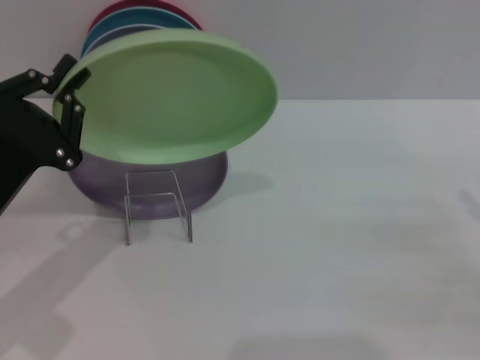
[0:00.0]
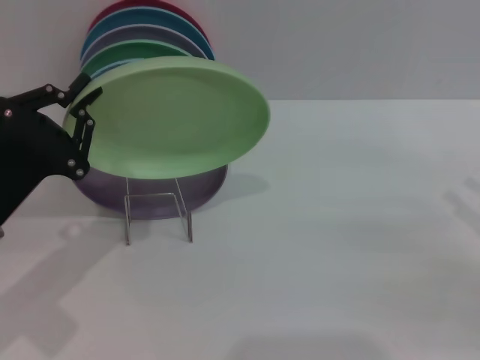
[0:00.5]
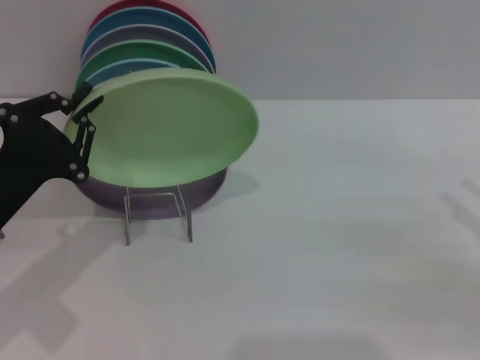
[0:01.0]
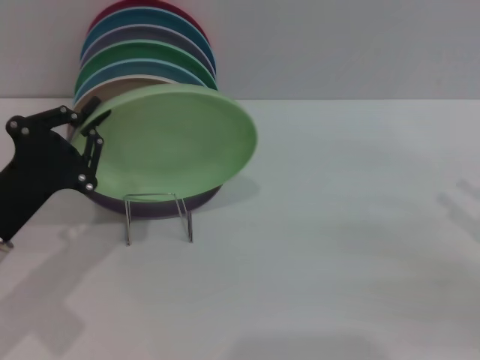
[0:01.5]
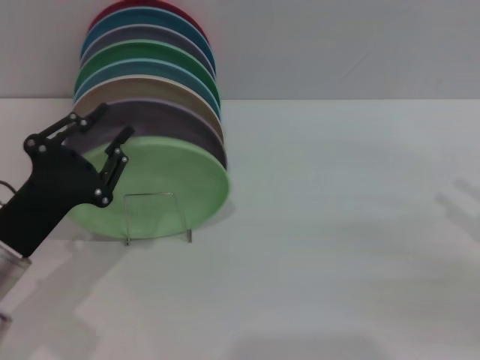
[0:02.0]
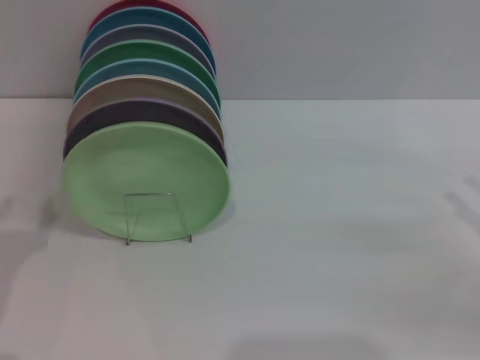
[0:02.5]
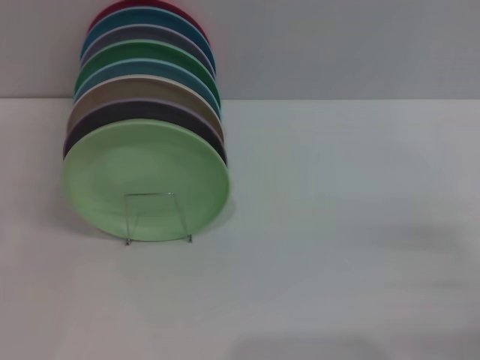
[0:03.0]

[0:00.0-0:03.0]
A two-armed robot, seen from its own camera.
Task of the whole recording: Grip the plate with one hand, pass it to the other, then set it on the shelf.
Step, 0:00.0 to 0:02.0: Place the plate on the shelf with the left gripper.
0:00.0 to 0:01.5: The grippers move only a little.
0:01.5 to 0:03.0: The right gripper ends up some 5 cm from where it was, while the left gripper travels to the left and backward by approximately 10 cm, and opens its fingers.

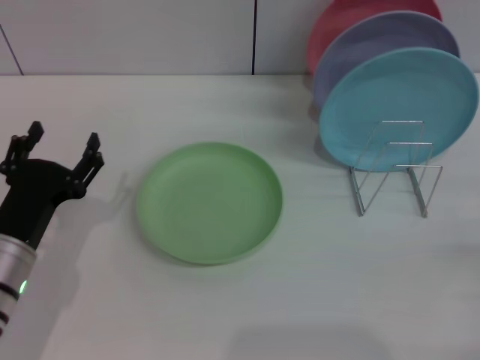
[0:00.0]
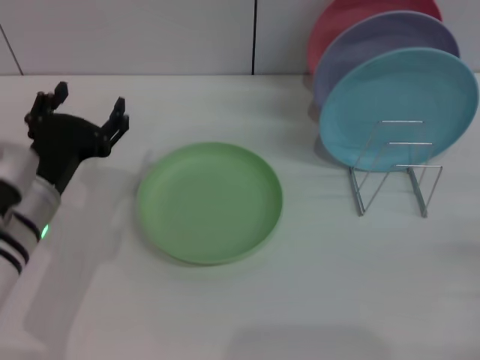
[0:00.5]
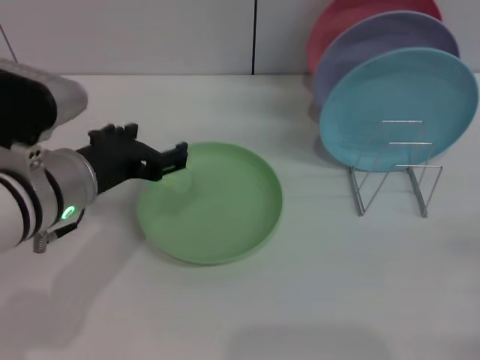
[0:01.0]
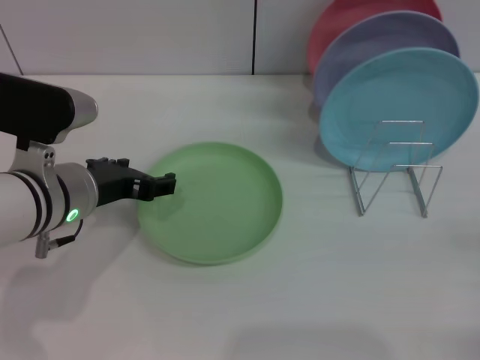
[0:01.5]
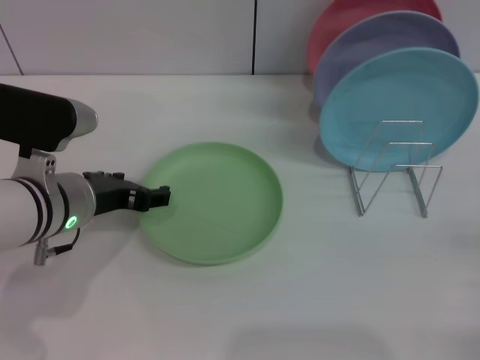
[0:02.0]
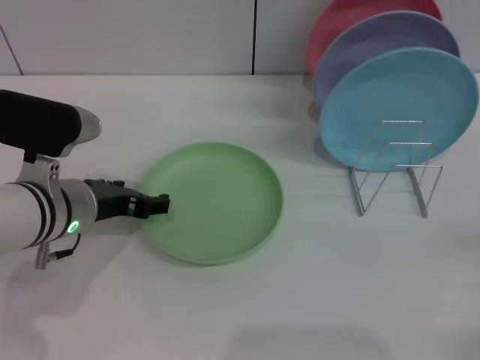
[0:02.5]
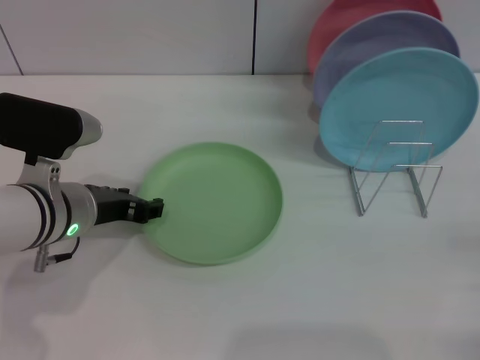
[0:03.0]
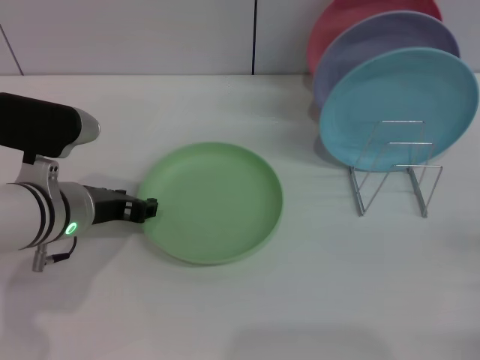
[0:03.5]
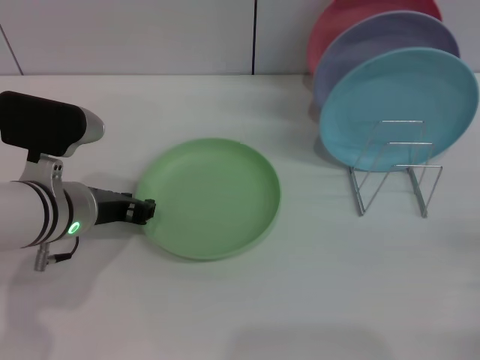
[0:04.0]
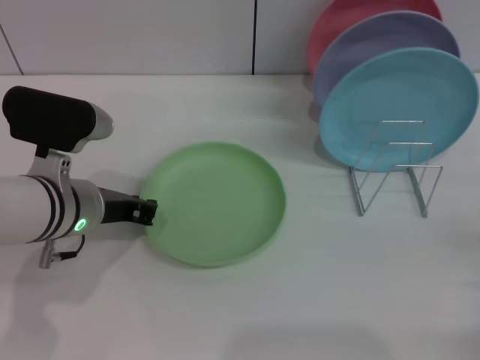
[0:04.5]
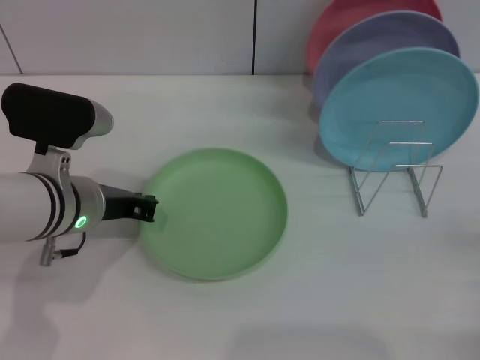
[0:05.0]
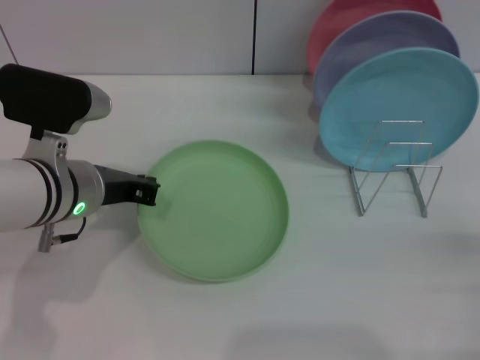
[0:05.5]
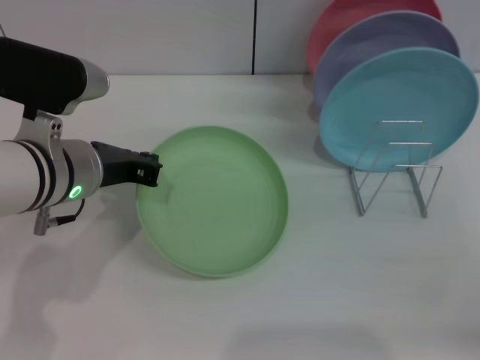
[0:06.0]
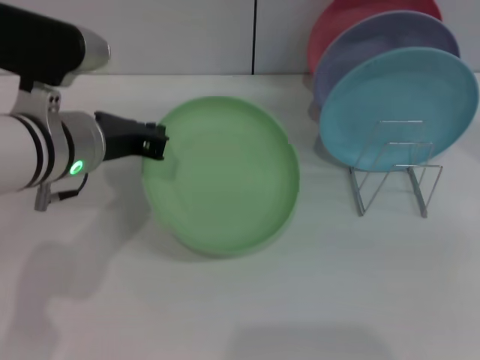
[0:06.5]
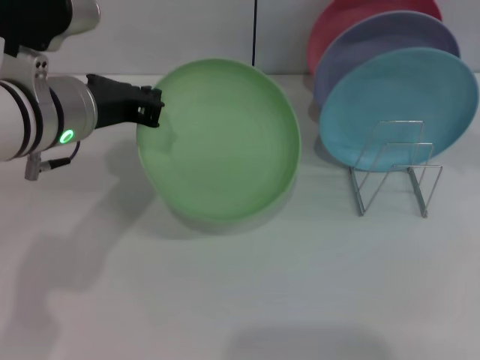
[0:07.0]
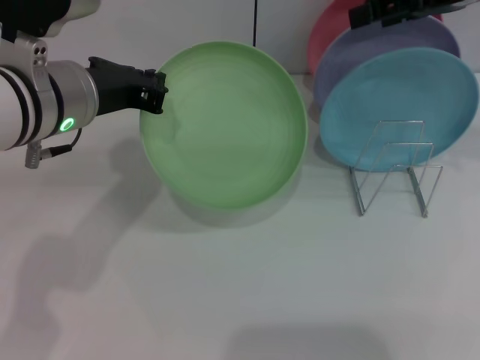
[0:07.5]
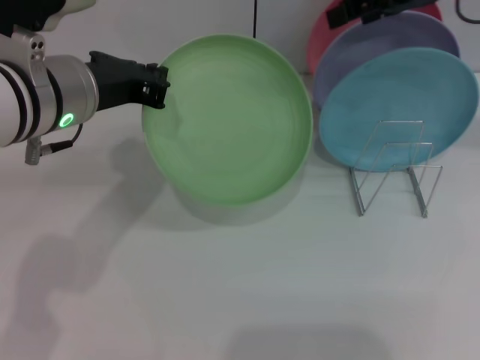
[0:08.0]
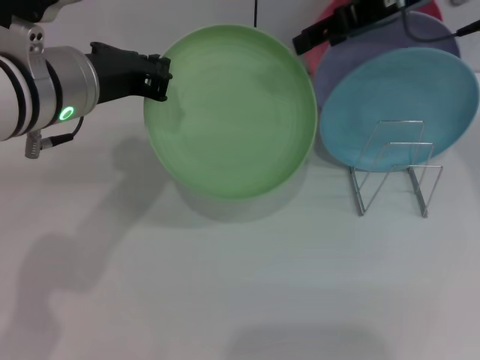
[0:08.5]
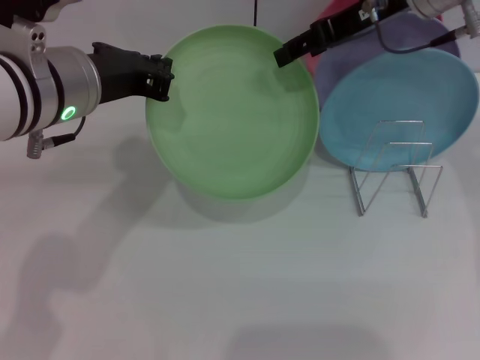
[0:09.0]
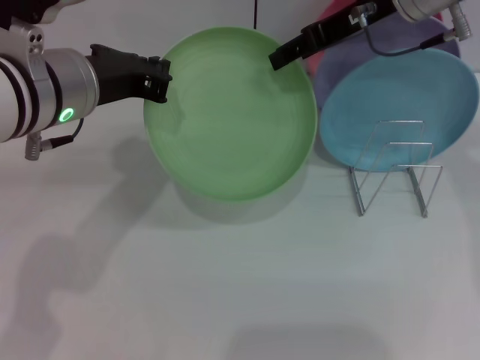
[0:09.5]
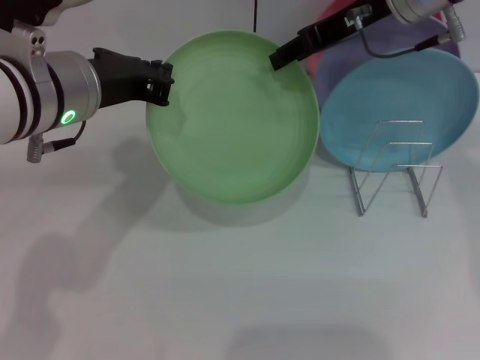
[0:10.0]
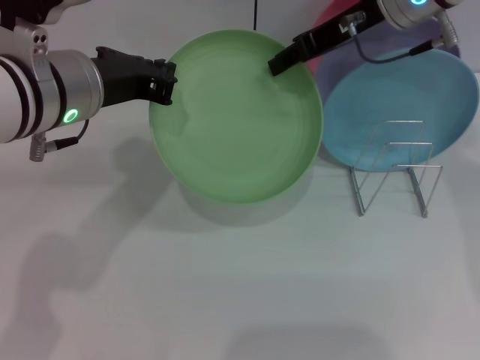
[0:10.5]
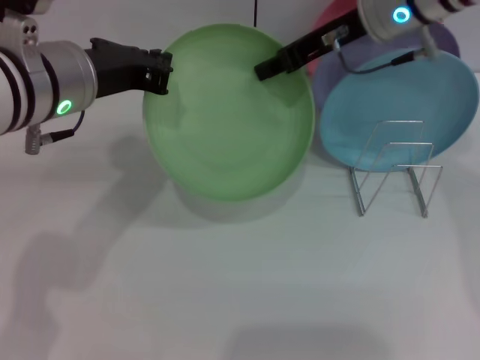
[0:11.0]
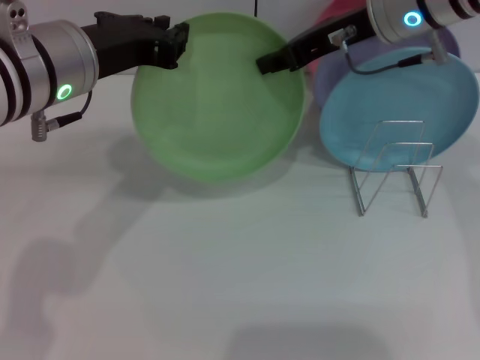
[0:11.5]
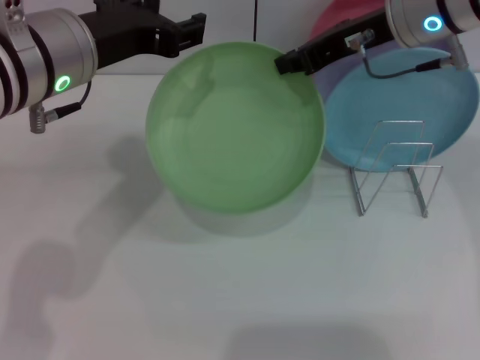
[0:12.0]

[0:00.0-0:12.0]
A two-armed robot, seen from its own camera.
Task of the whole recording: Grip the plate with one hand, pass it to the other, then set it on the shelf.
Step, 0:00.0 to 0:06.5: Pick up the plate with the left gripper.
Step, 0:07.0 to 0:12.0: Pass the plate from the left gripper to the right gripper.
0:00.0 to 0:02.0: The left gripper heads upward, forward and to the right, covering approximately 10 cm.
0:02.0 to 0:04.0: The left gripper closes.
0:04.0 to 0:06.0: The right gripper shifts some 10 cm upward. Meanwhile the left gripper moves approximately 5 cm, and closes up.
0:06.0 to 0:08.0: The right gripper shifts some 30 cm forward, upward and to the left; the left gripper goes some 5 cm upward.
0:08.0 to 0:10.0: The right gripper goes some 5 cm to the left.
0:10.0 to 0:12.0: The left gripper opens up. The right gripper closes.

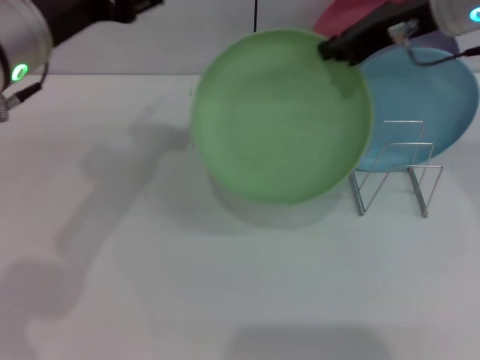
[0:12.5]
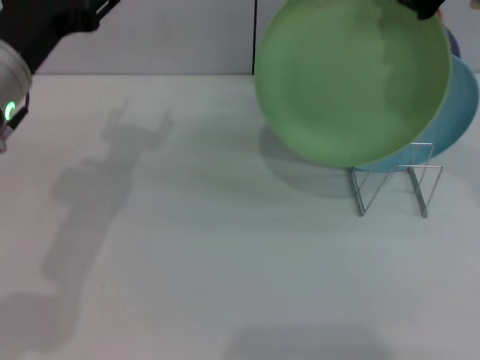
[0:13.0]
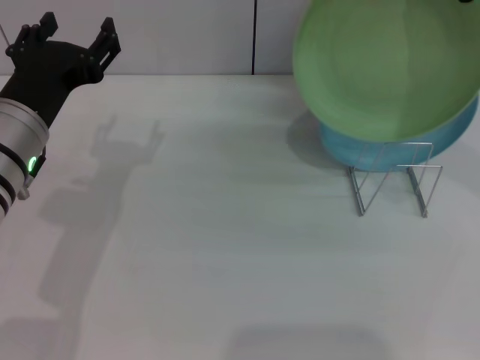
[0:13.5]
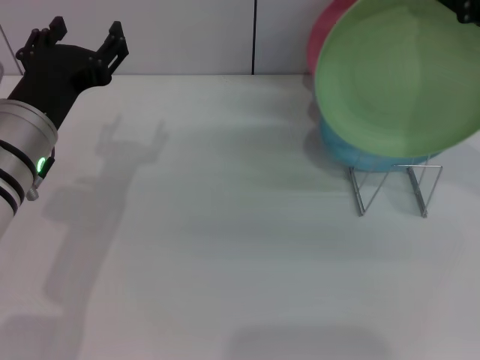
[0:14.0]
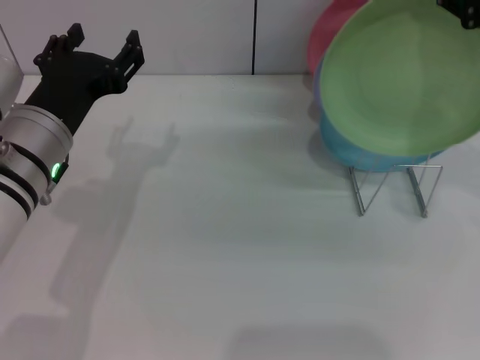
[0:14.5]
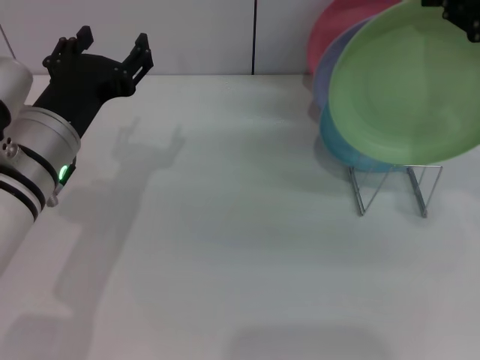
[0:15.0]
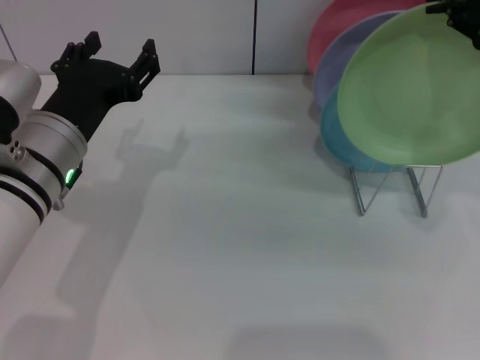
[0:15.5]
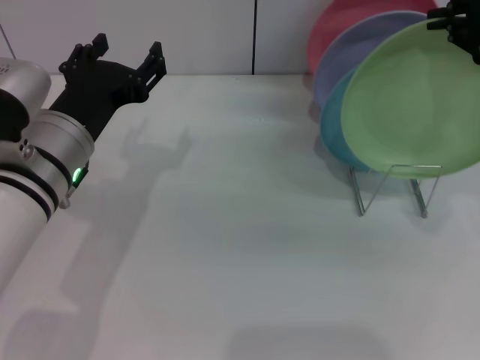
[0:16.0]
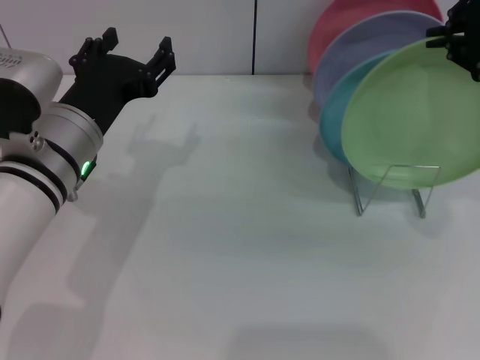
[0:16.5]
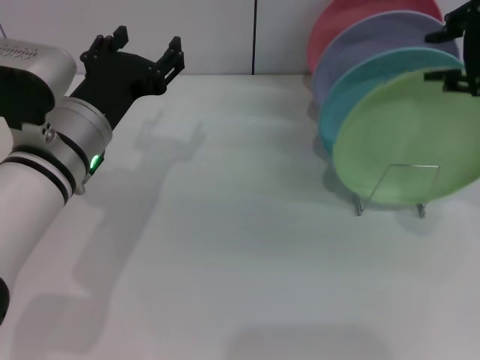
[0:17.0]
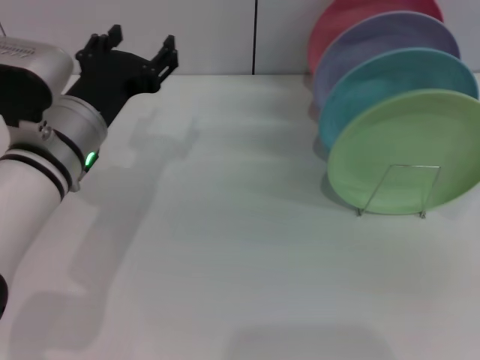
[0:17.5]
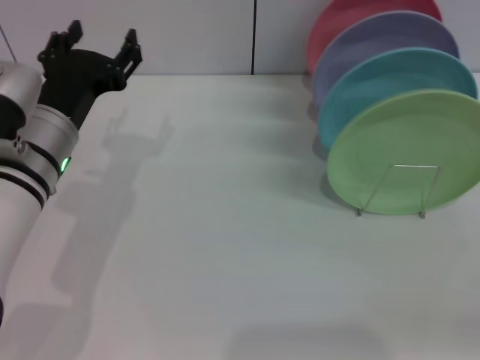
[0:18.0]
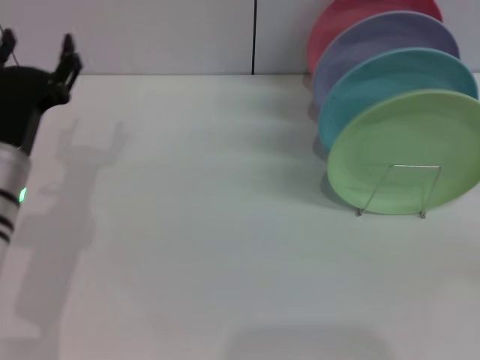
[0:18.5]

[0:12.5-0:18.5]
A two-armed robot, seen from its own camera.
Task of the whole recording: Grip the plate with one hand, pass it to the other, then set it on the shelf.
Step, 0:12.5 to 0:17.0: Place the plate on the shelf with the right gripper.
0:12.5 to 0:14.5: The right gripper goes approximately 10 cm backward and upward. The left gripper travels downward by some 10 cm.
0:14.5 to 0:16.5: The grippers make only small movements.
0:16.5 to 0:18.5: The right gripper heads downward, backward and to the right, covering roughly 30 cm, and opens up; the left gripper moves to the left and downward, about 10 cm.
